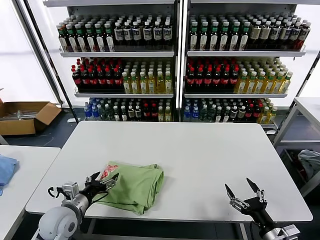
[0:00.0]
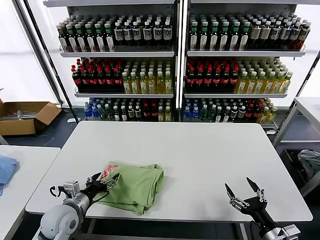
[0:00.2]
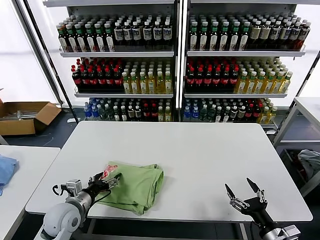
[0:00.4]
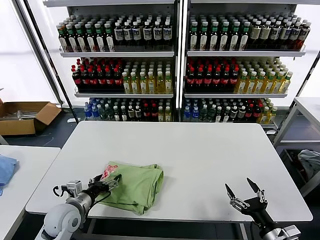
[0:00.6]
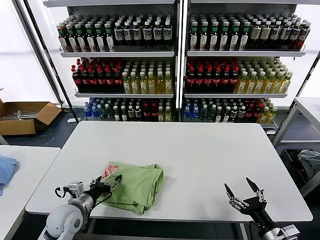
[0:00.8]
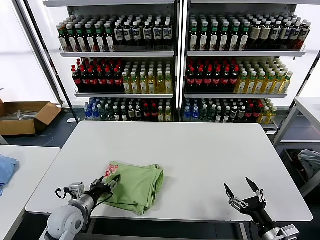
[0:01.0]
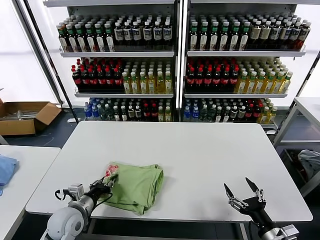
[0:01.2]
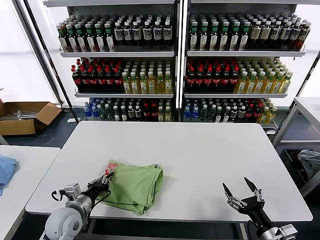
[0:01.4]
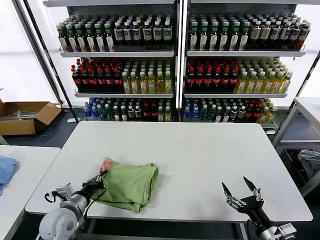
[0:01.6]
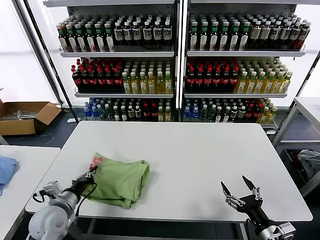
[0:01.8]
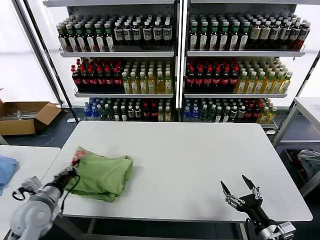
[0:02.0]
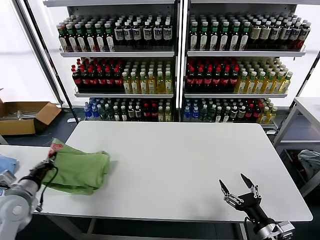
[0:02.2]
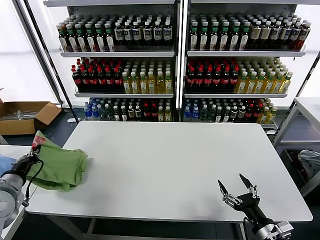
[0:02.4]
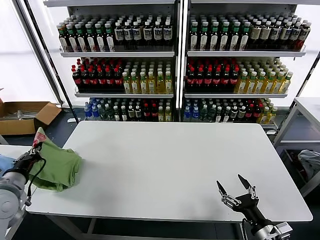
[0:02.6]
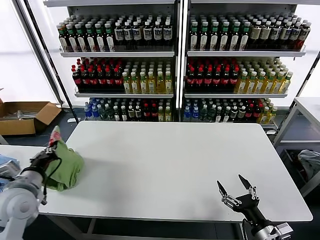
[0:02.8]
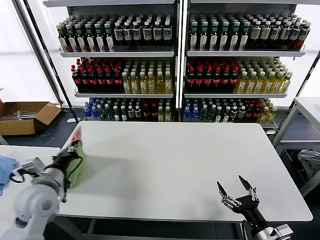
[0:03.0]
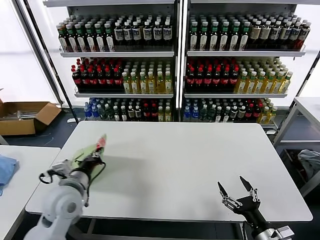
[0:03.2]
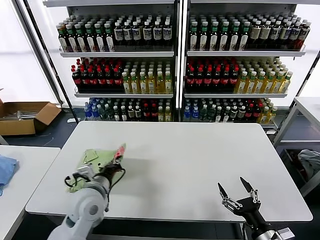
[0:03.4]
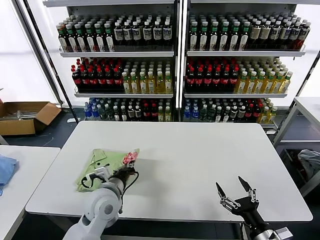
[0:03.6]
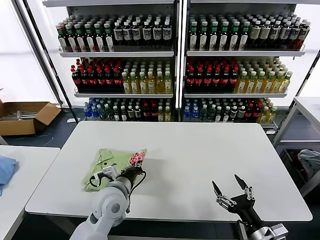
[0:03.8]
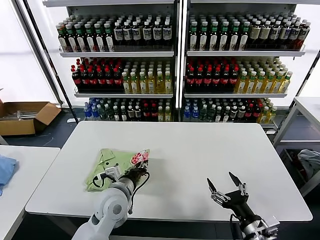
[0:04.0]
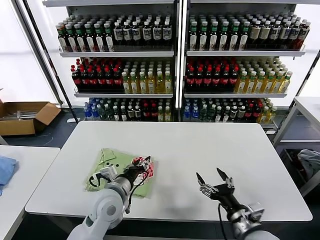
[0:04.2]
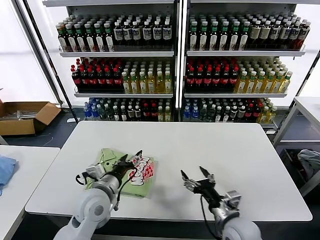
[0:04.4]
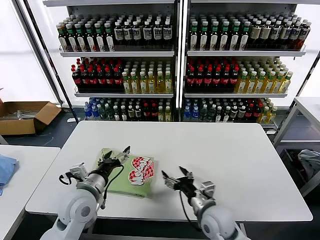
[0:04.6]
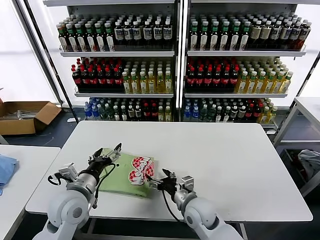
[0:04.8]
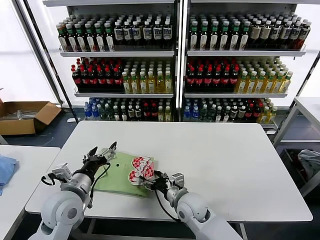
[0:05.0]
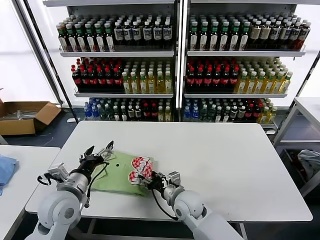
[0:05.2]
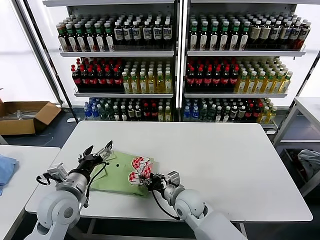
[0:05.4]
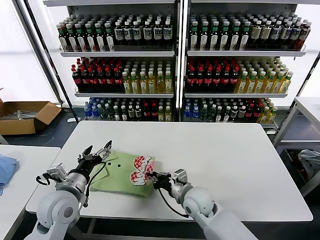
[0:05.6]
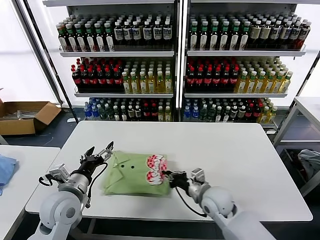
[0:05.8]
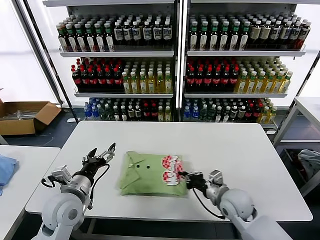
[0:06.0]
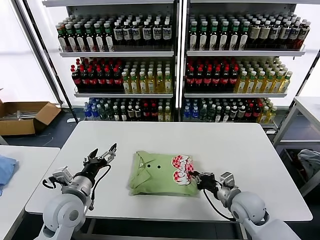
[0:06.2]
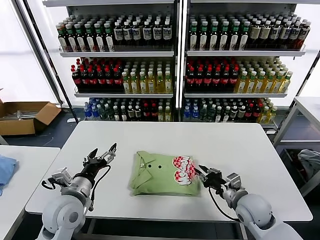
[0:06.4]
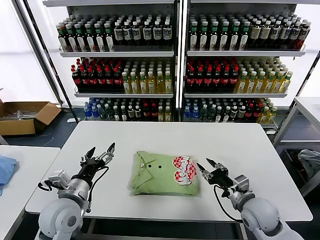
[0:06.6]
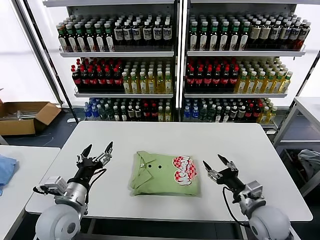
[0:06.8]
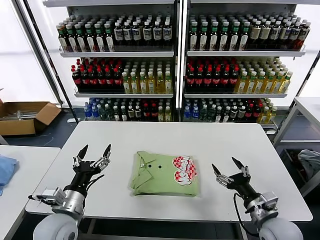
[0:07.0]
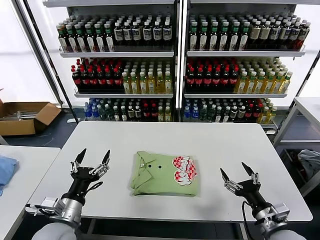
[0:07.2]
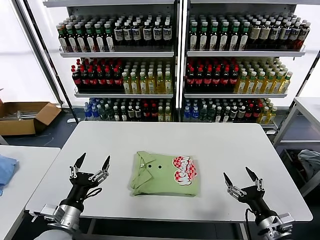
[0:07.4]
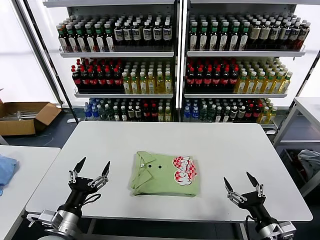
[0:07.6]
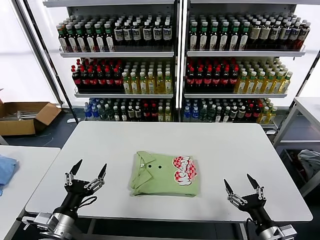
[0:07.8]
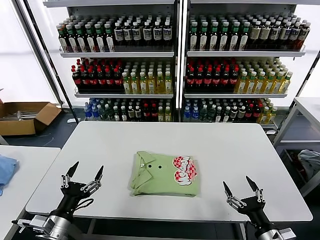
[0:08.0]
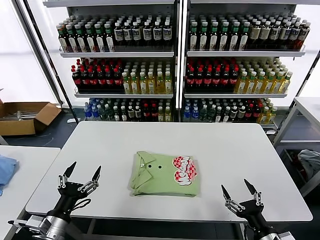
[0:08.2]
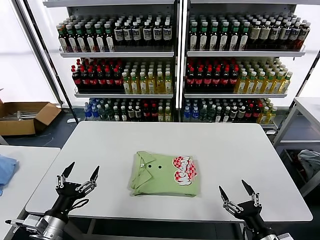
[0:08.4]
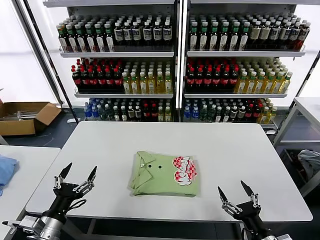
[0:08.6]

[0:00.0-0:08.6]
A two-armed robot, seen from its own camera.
Task of the whole recording: fold and organize the clothes.
Step, 0:00.0 to 0:04.2: Flip the folded clothes over with left gripper.
Step, 0:04.4 to 0:06.4: Drag the clothes to the center of the table.
0:00.0 to 0:01.4: The left gripper closes its fingers.
0:01.4 to 0:02.8: The left gripper shifts roughly 15 cm upward and to the left.
0:02.8 to 0:04.4: The right gripper heads to the left and forward, covering approximately 10 cm; the left gripper is displaced to the right by roughly 20 cm, and opens.
0:04.4 to 0:05.8: The left gripper shifts about 10 cm to the left. The right gripper shifts roughly 15 cm forward and to the left, and closes.
0:05.8 to 0:07.2: The left gripper travels backward by some 5 cm, while the right gripper heads to the right and backward, covering about 20 cm, and opens up.
0:07.2 to 0:08.6: The left gripper shifts some 5 cm backward. Meanwhile the right gripper moves backward, about 10 cm.
